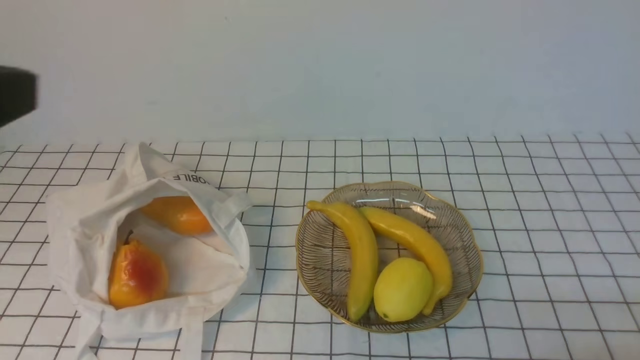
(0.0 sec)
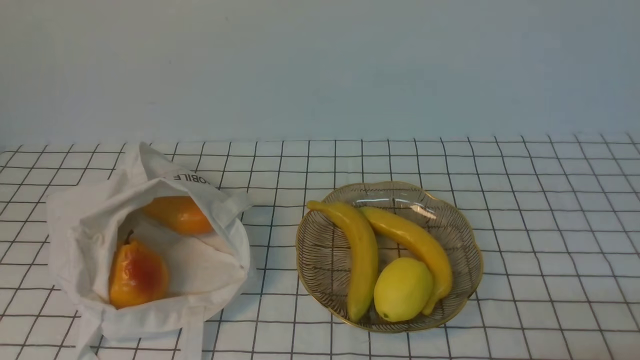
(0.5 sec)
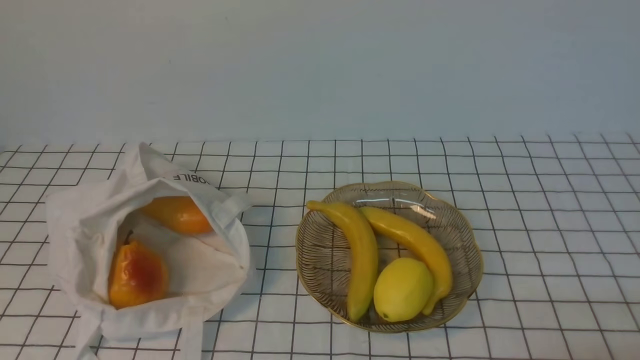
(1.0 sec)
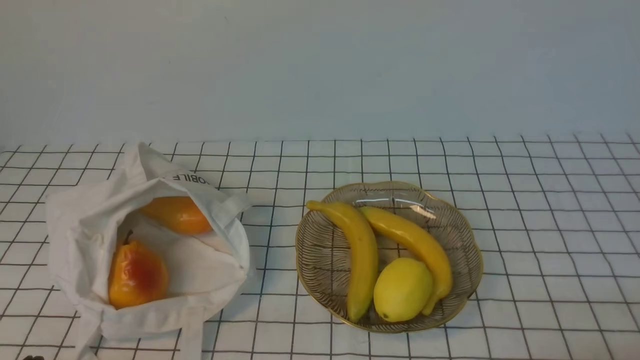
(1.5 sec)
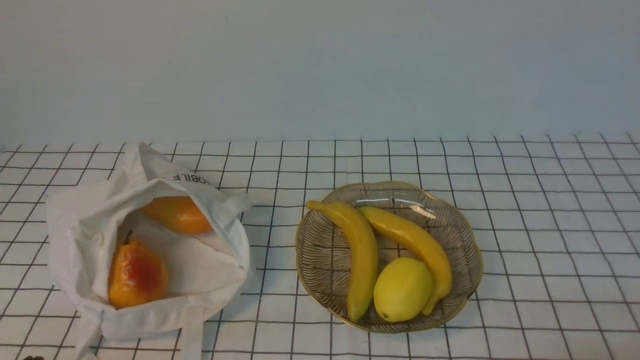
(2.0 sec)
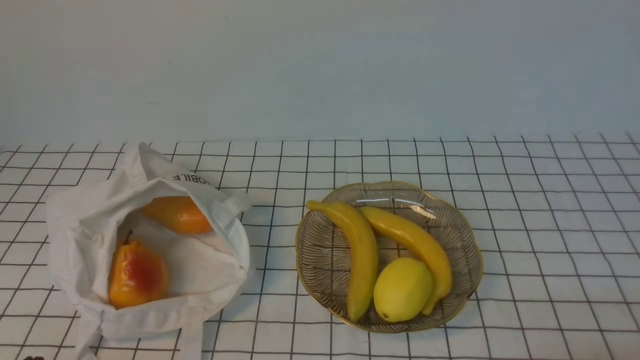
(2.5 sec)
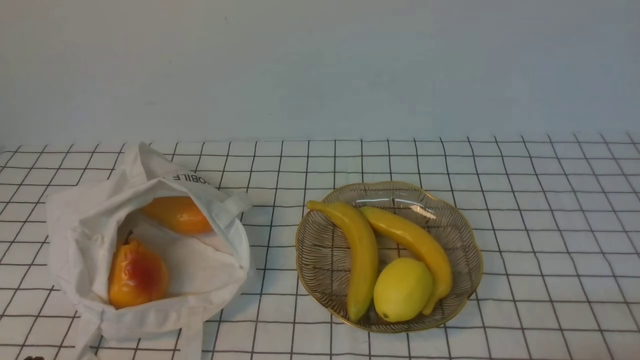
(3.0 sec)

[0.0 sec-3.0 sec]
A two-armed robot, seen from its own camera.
0.0 sec to 1.5 sec: The left gripper is displaced downward by roughly 25 cm.
1.5 sec to 3.0 sec: The two grippers keep their place.
